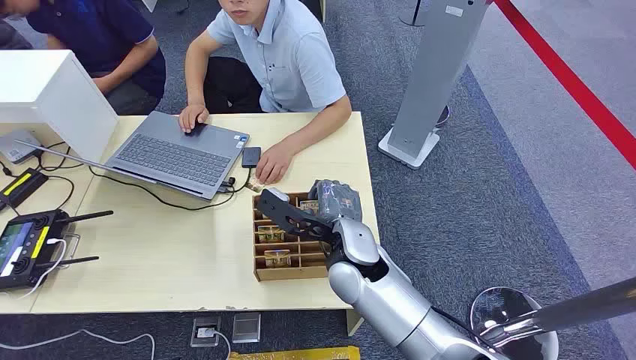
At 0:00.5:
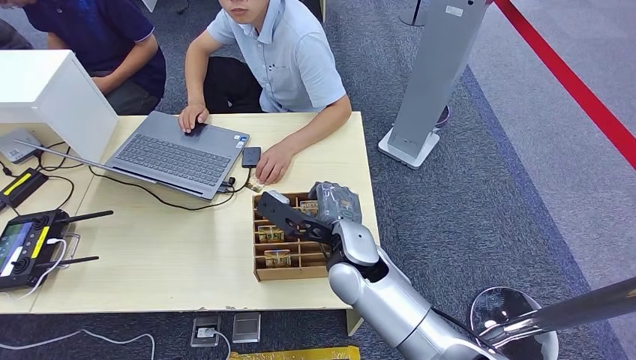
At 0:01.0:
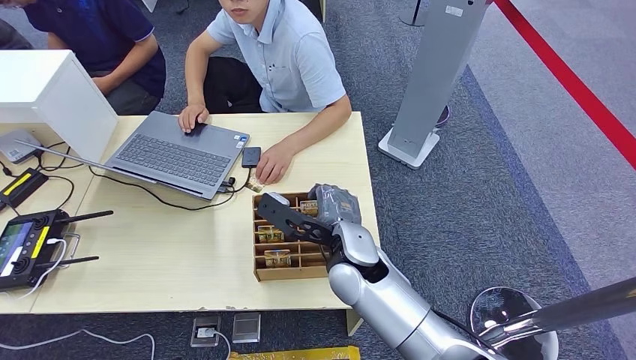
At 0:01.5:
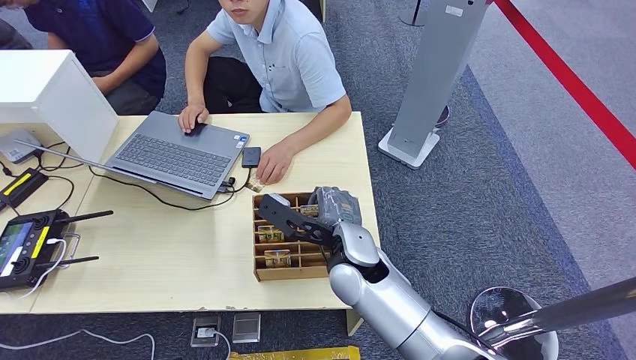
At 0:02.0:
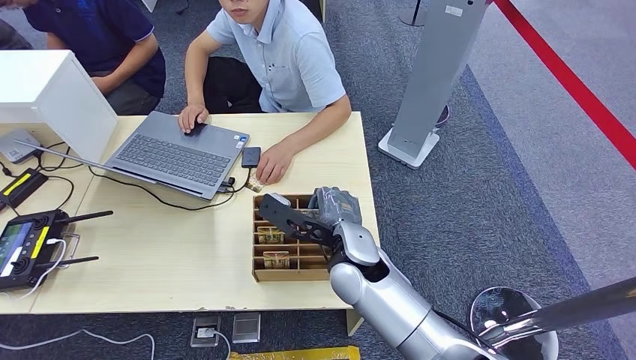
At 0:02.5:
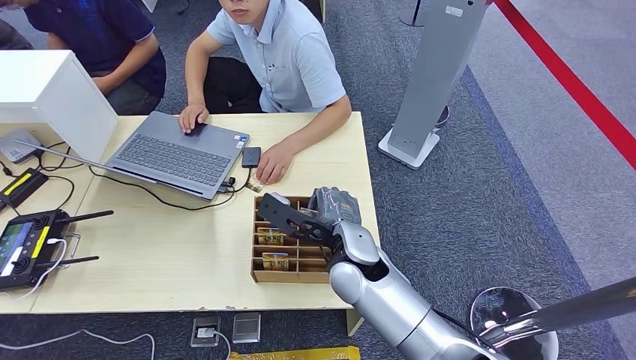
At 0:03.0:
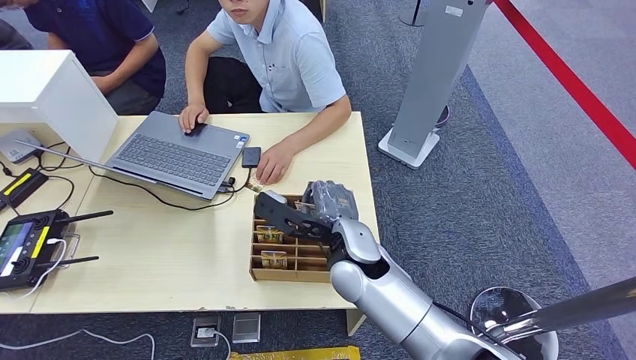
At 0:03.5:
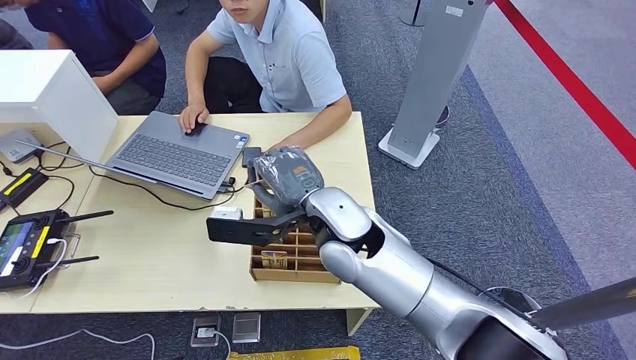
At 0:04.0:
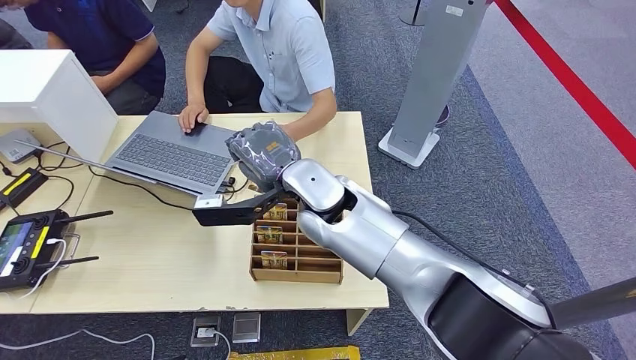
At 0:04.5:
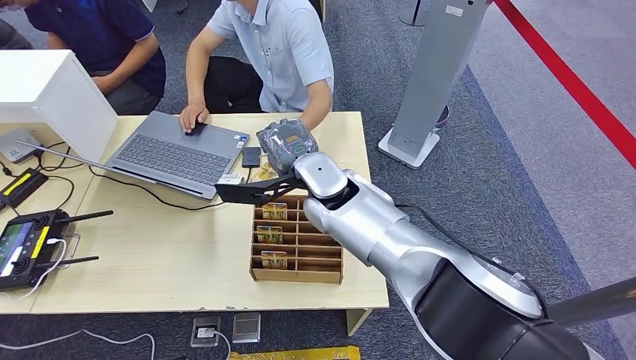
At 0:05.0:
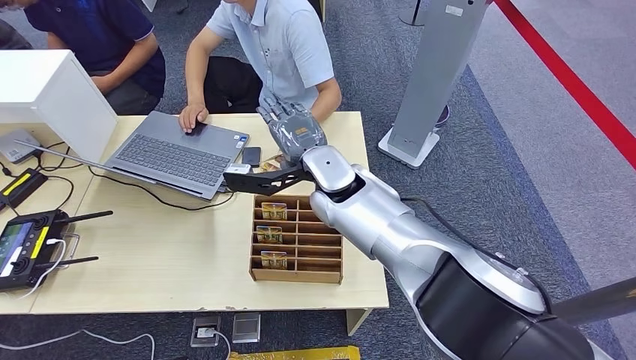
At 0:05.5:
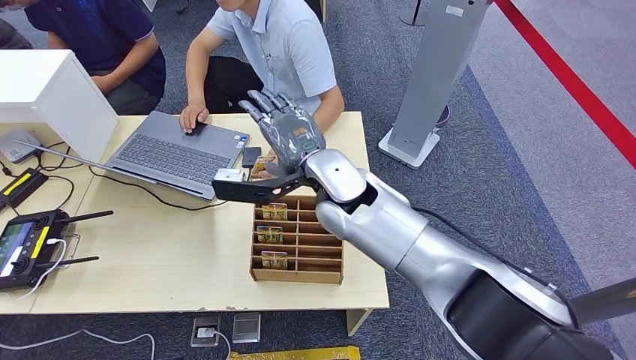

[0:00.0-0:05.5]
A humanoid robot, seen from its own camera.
Step, 0:00.0 to 0:03.0: Pick up the room card from the card holder.
Step, 0:04.0 to 0:05.5: Hand the room card to the target.
0:02.0 to 0:03.5: The right hand heads upward, covering about 10 cm.
0:03.5 to 0:05.5: The right hand moves forward, approximately 5 cm.
